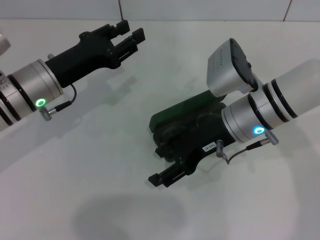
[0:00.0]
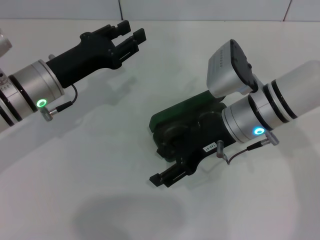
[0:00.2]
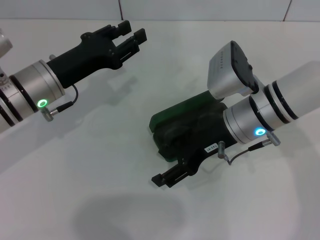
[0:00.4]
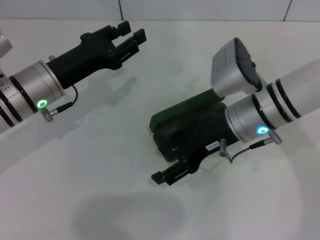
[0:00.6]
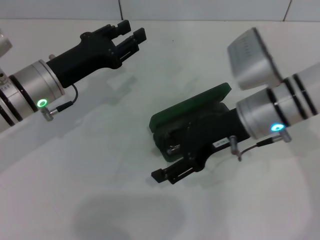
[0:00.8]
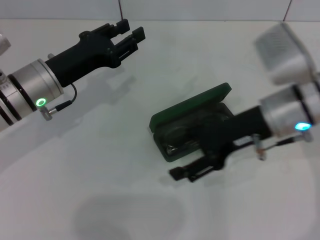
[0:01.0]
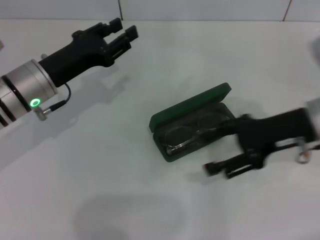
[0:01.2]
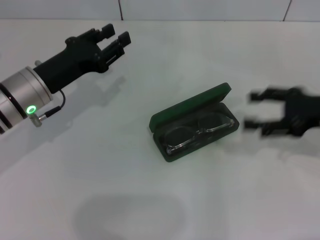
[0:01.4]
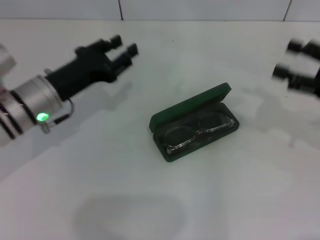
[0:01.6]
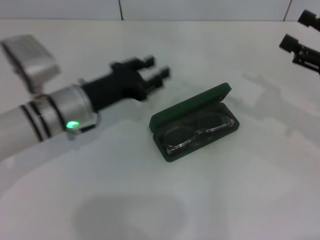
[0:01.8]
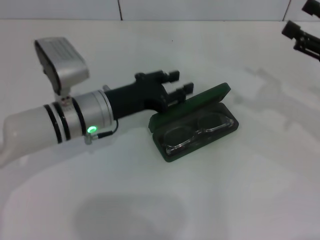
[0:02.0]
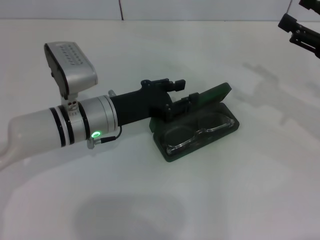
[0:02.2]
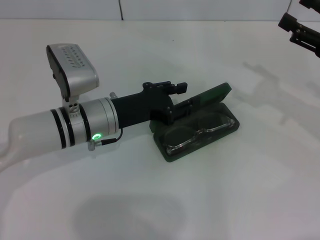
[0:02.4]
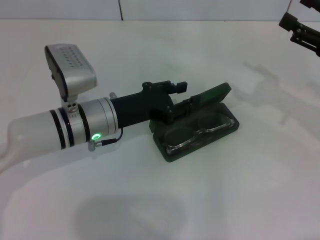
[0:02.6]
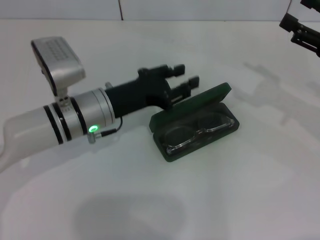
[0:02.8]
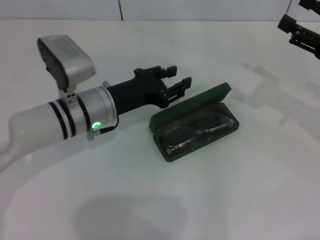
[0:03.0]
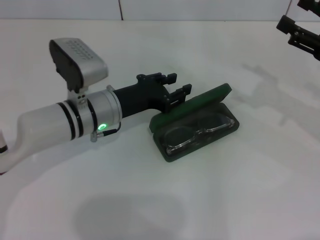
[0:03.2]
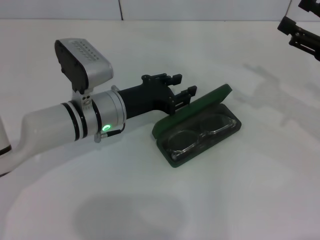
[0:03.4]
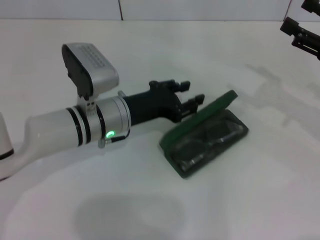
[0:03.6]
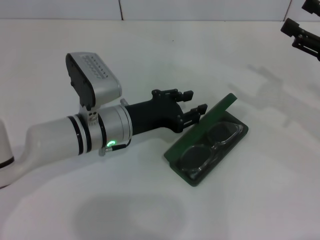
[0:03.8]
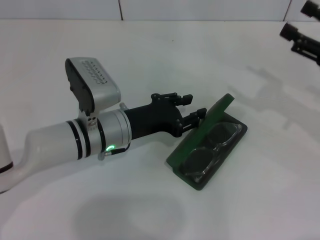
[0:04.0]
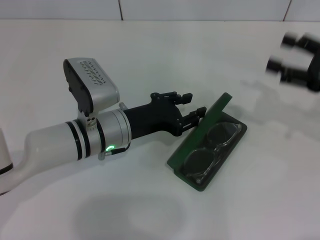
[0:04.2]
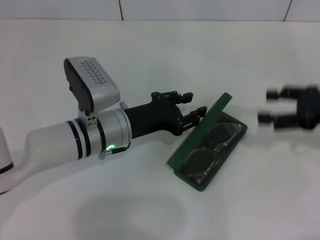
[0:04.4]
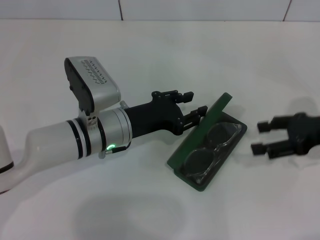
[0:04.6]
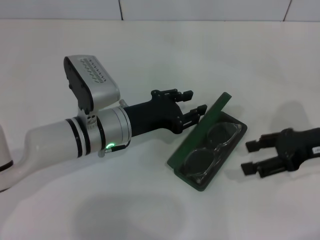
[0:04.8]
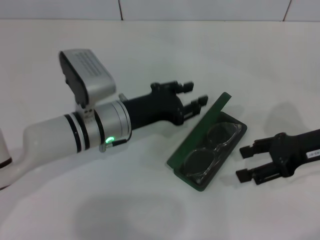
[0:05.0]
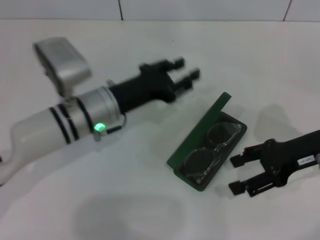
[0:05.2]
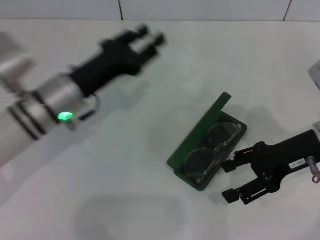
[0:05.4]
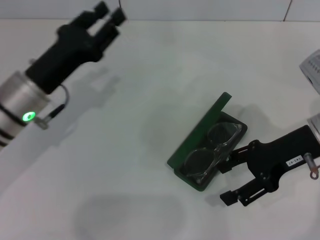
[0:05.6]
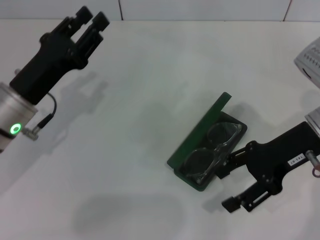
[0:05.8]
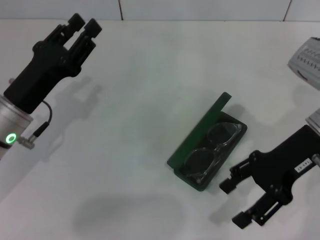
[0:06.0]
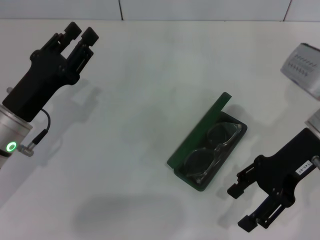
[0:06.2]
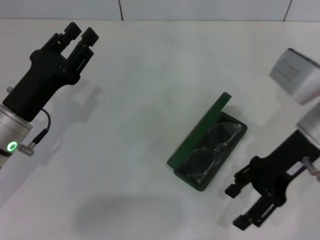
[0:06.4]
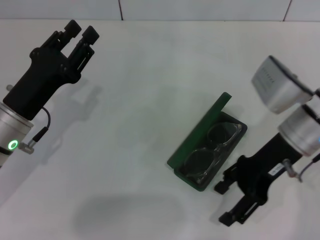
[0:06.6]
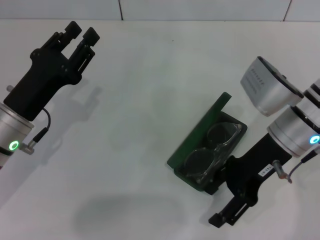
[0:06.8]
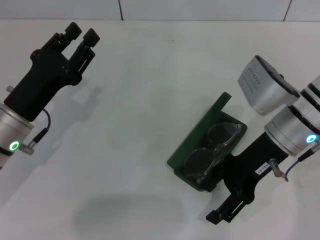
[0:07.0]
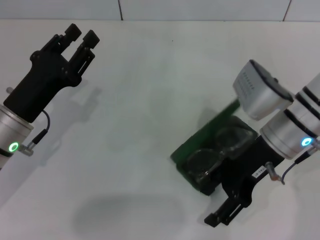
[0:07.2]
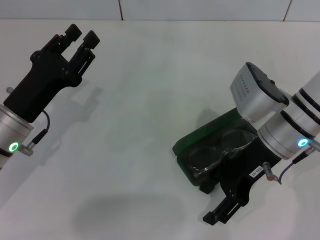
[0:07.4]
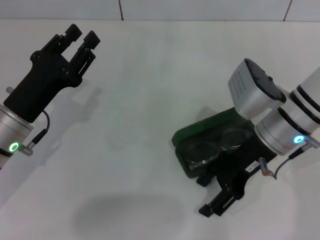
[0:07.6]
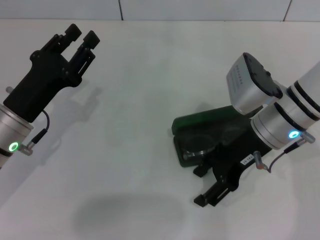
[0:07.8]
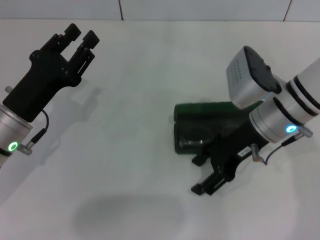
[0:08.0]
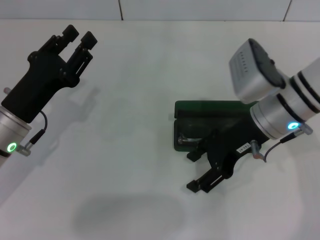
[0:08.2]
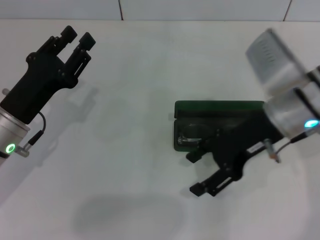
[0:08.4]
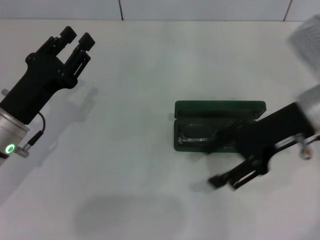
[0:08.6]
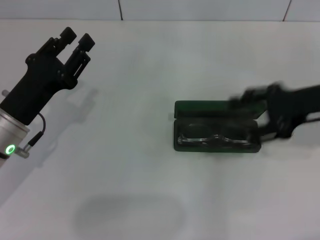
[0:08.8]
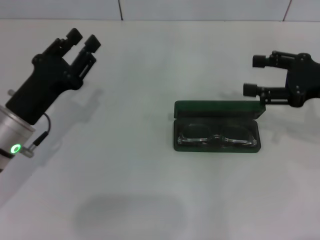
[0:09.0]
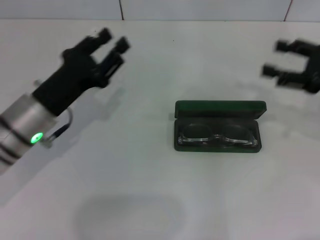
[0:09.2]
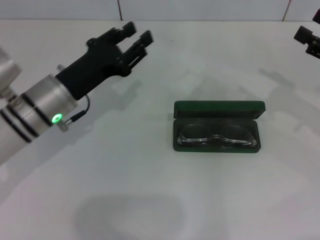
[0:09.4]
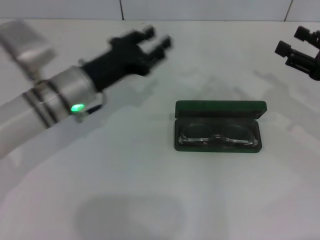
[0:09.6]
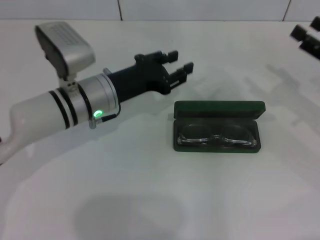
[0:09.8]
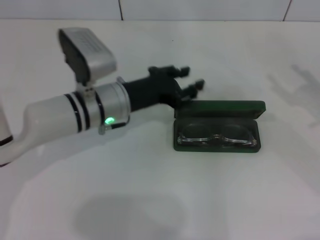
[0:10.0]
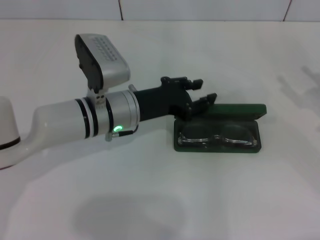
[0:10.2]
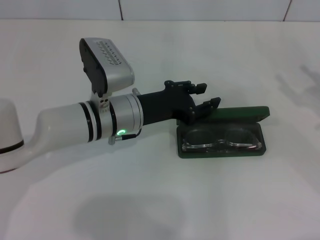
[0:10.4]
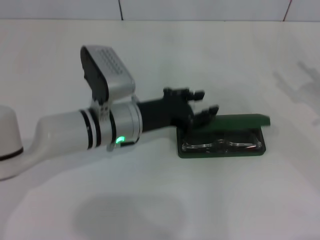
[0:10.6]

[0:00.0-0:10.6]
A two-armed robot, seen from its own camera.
0:00.0 to 0:01.6: The right gripper heads to the right, covering approximately 20 cm.
0:01.6 to 0:03.0: The left gripper heads to the right, covering roughly 5 cm.
0:04.6 to 0:06.0: Both grippers travel together to the left, some 10 cm.
0:06.0 to 0:07.6: The right gripper moves to the left, approximately 5 cm.
0:07.6 to 0:09.0: The right gripper travels to the right by approximately 15 cm.
0:09.0 to 0:10.6: The right gripper heads to the right and downward, covering approximately 10 cm. Meanwhile the left gripper shifts roughly 15 cm to the right.

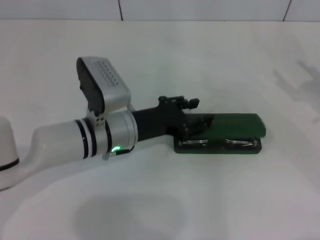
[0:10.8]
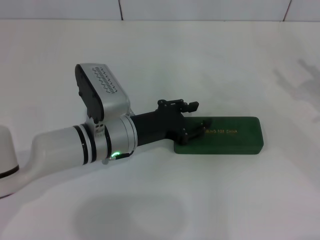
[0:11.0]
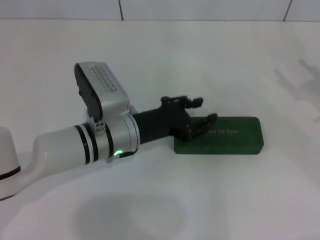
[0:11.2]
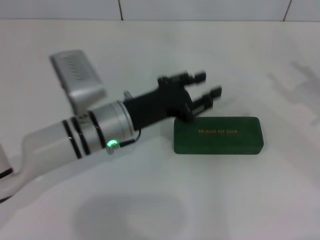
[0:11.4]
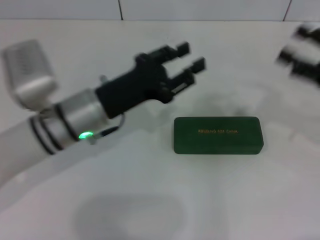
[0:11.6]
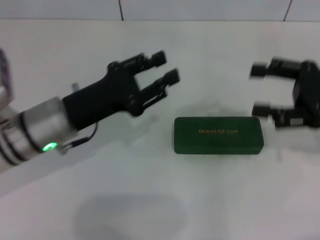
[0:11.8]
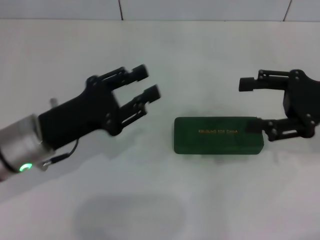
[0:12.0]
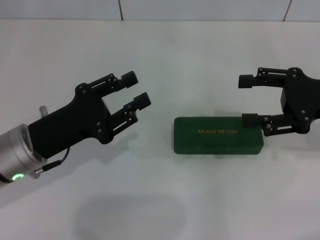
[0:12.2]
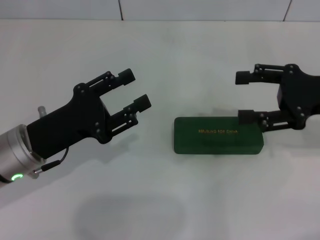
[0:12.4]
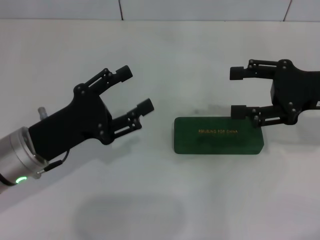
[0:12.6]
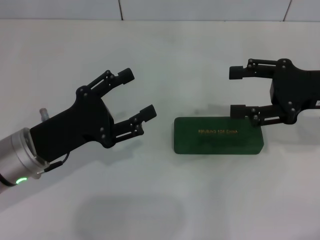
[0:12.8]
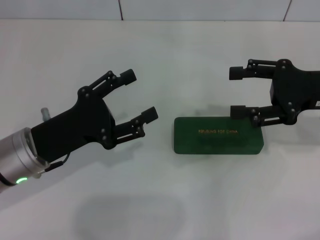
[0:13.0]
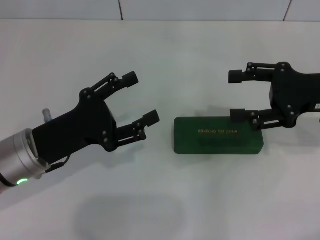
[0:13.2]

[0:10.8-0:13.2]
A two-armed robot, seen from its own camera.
0:10.8 to 0:12.0: The right gripper travels to the left and upward by roughly 10 cm. The left gripper travels to the left and backward by some 10 cm.
0:12.0 to 0:13.2: The left gripper opens its fingers.
